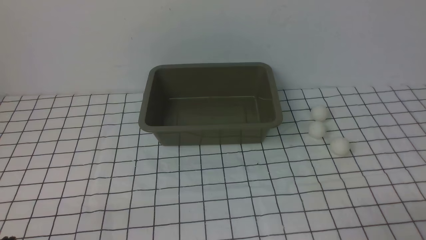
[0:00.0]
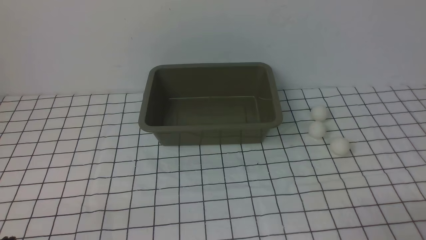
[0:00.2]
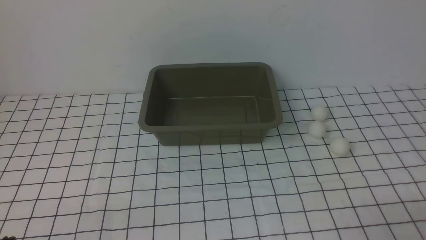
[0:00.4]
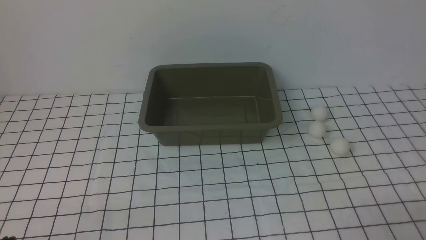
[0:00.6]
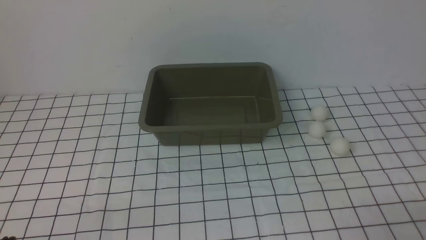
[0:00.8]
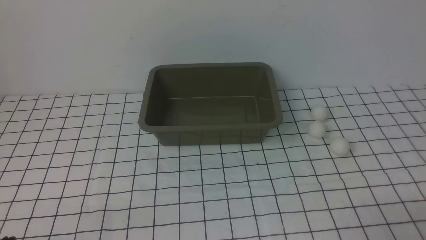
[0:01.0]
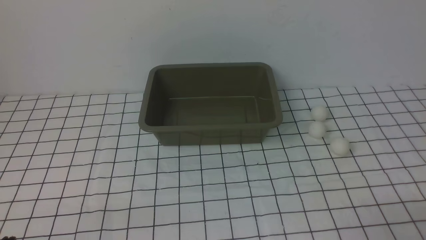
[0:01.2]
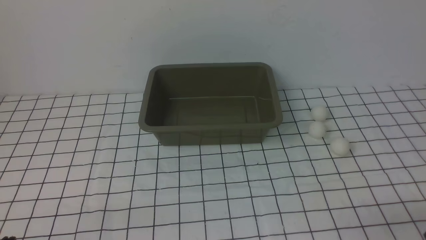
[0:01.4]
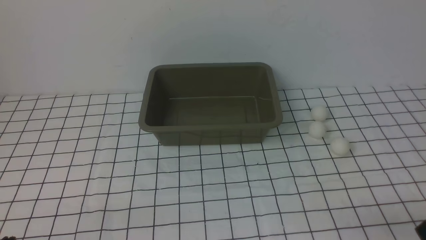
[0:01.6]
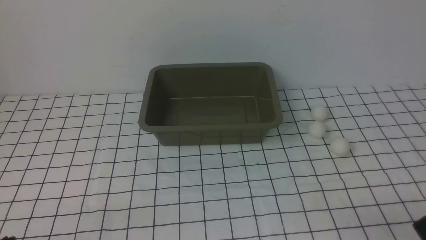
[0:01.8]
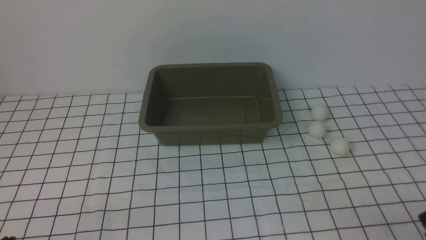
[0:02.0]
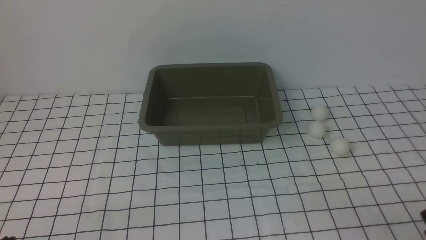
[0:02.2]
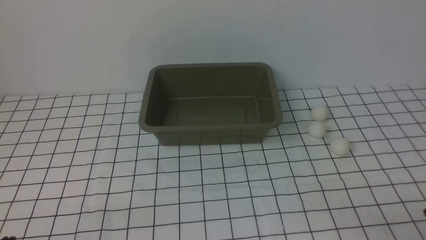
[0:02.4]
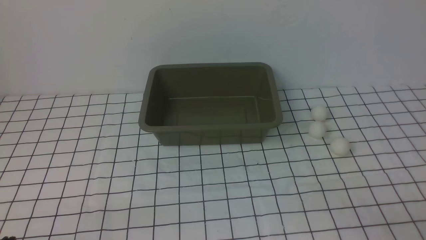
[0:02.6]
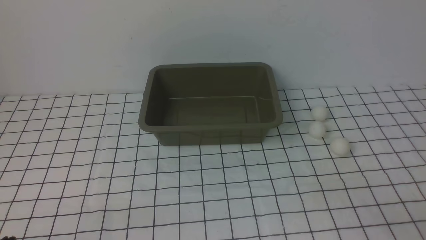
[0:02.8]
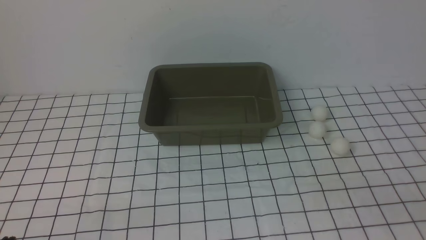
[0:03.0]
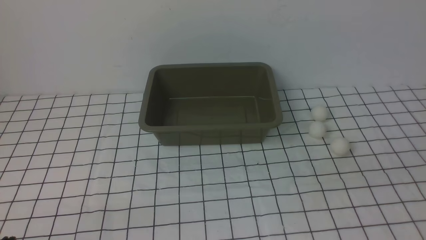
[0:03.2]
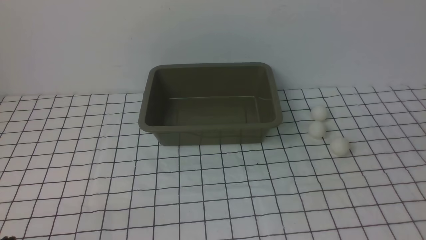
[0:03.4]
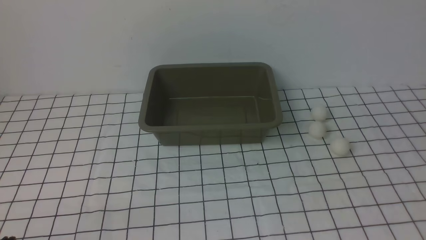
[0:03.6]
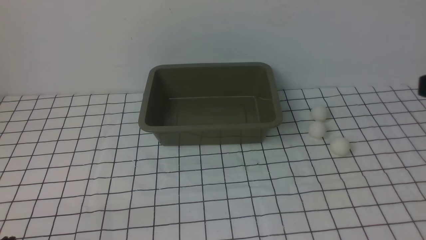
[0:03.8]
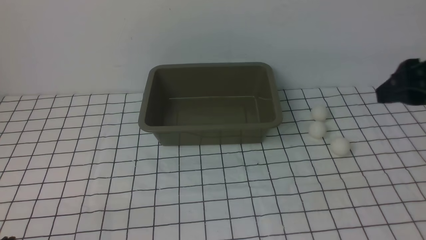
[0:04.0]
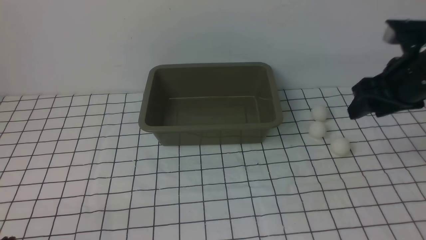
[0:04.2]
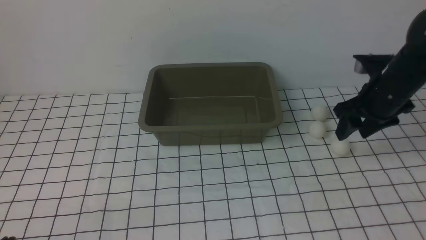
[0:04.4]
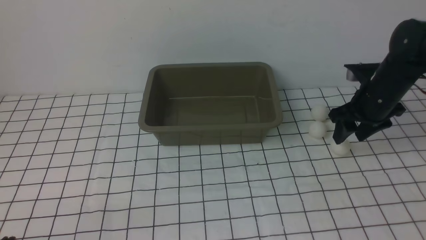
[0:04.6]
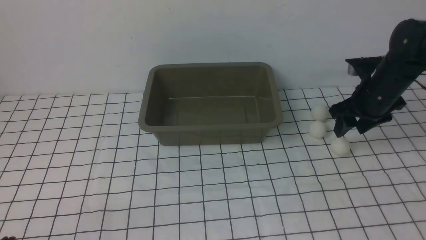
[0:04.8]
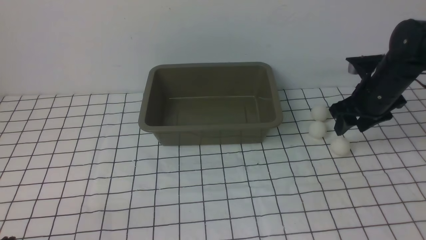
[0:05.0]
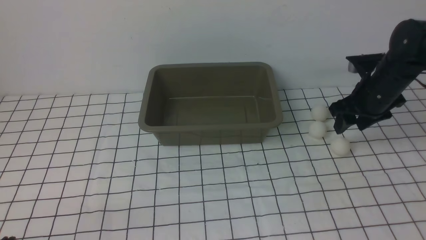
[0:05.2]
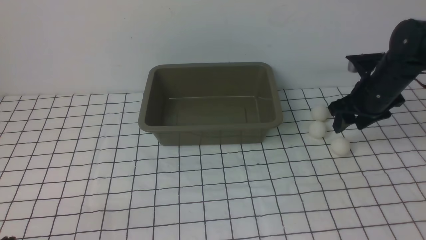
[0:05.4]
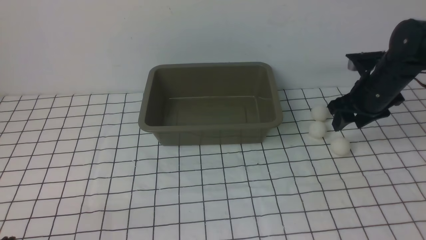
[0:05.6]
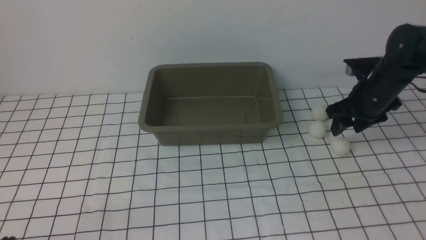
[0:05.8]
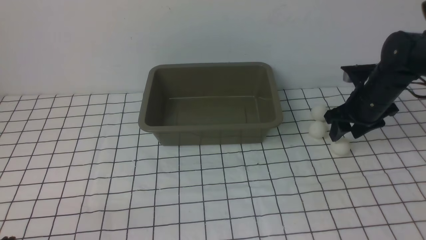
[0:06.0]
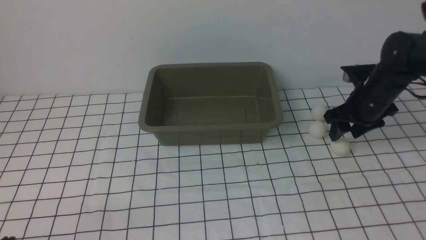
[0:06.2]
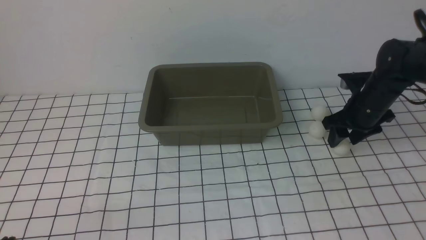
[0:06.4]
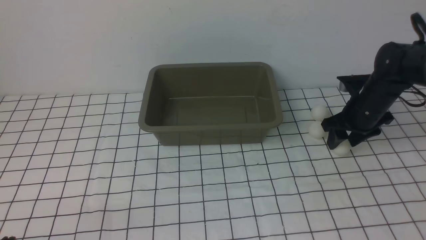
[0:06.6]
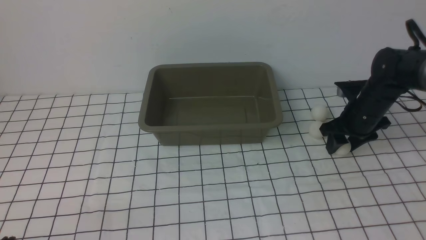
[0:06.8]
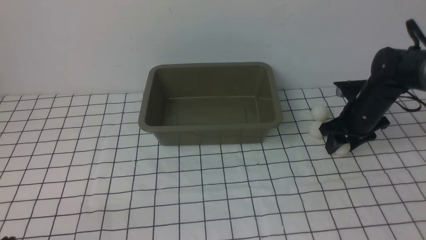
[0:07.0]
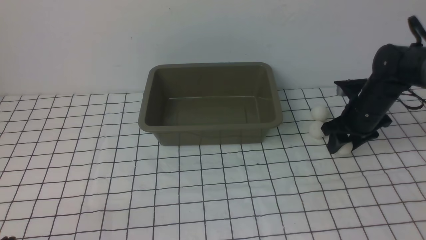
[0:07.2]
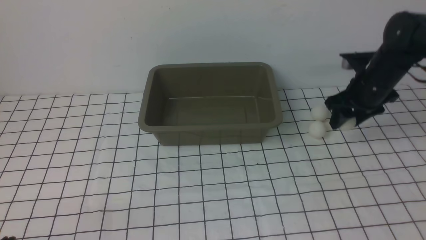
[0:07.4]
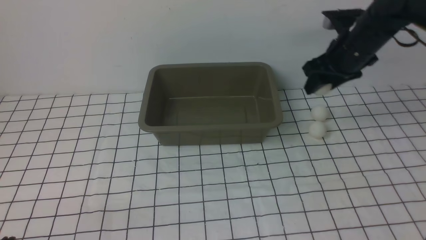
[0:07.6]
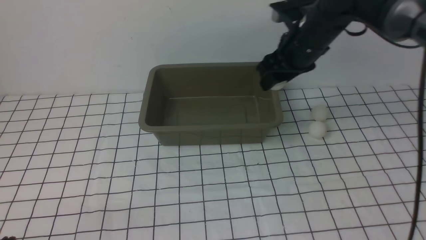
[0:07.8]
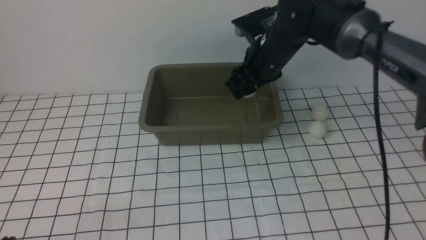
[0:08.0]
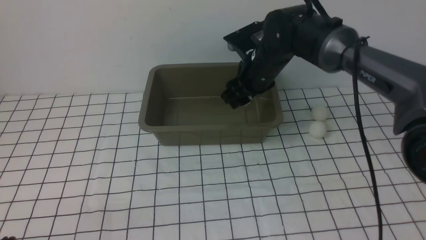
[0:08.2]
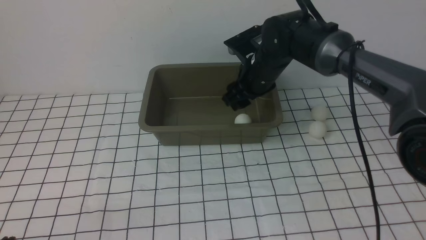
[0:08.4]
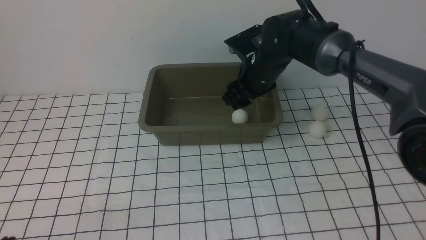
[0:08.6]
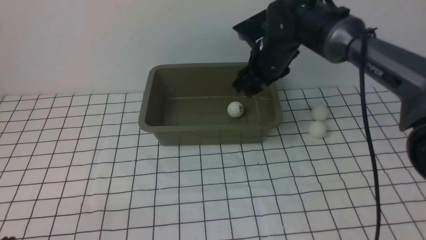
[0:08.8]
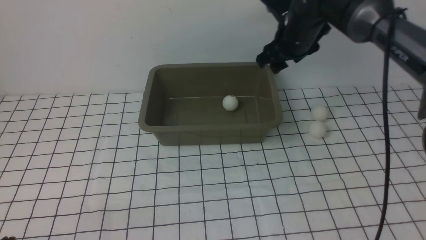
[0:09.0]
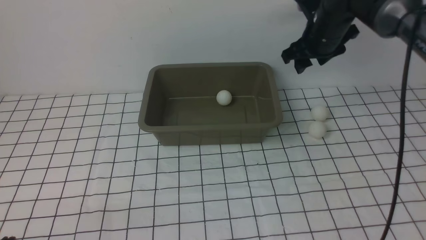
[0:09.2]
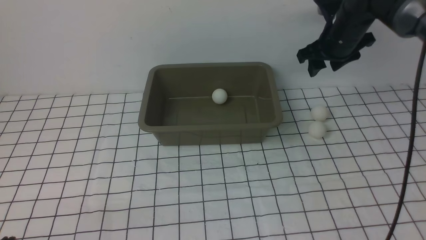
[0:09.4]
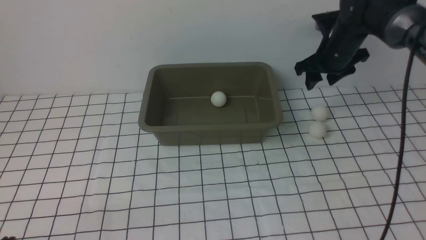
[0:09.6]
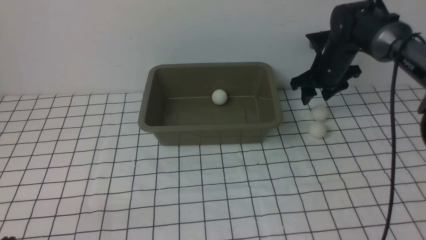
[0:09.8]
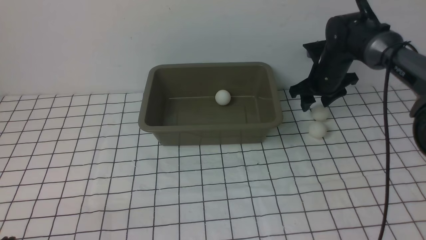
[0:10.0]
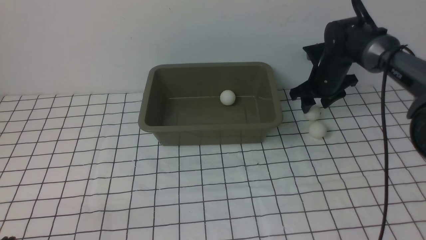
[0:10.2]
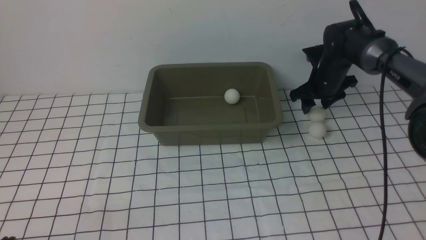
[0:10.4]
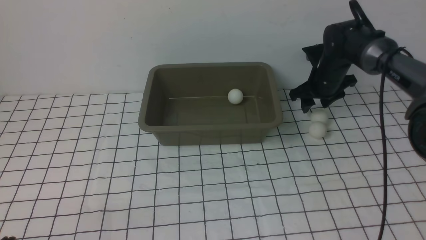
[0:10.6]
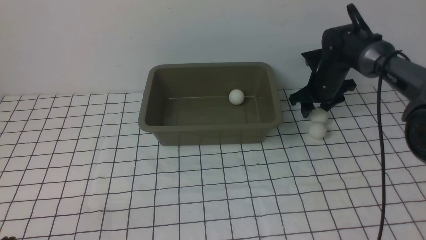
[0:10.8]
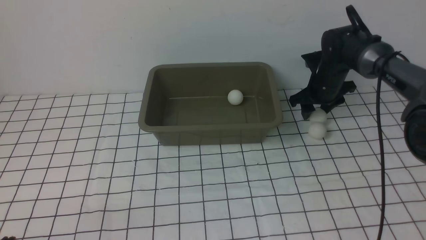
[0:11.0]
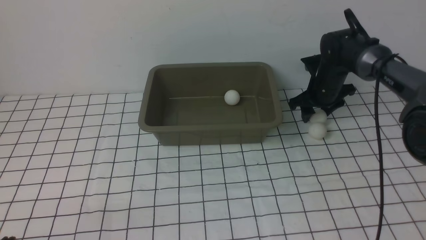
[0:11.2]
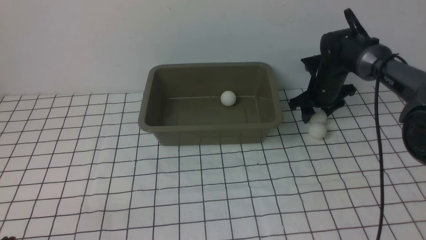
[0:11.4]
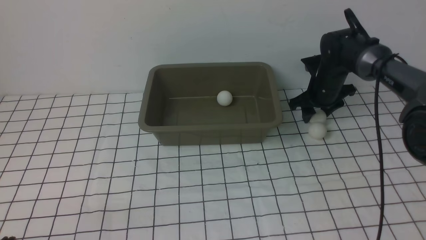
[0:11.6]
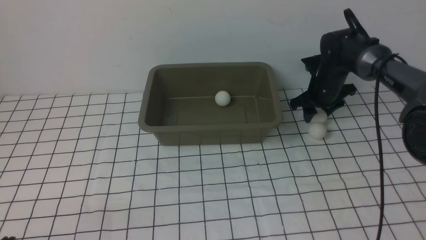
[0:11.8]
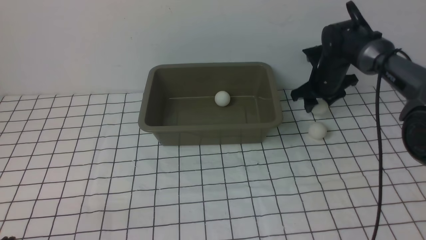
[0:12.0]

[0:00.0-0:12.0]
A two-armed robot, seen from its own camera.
Step, 0:00.0 to 0:07.4: use the right arm to clamp the table tennis ball closest to it.
Step, 0:07.6 to 0:08.6: use the right arm to put the table tennis ball into the box.
0:03.0 to 0:04.4: The right gripper goes roughly 35 cm forward.
0:04.4 to 0:06.0: The right gripper shifts by roughly 5 cm.
0:06.0 to 0:07.6: The right gripper heads upward, covering roughly 5 cm.
0:07.6 to 0:09.0: The right gripper goes some 10 cm to the left.
0:09.0 to 0:10.4: The right gripper heads to the right, downward and forward, covering some 15 cm.
0:10.4 to 0:12.0: There are only small adjustments of the grippers.

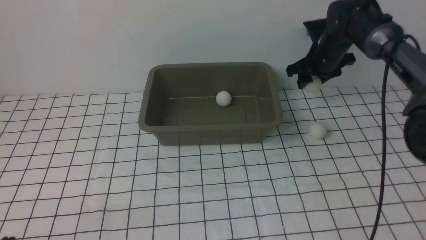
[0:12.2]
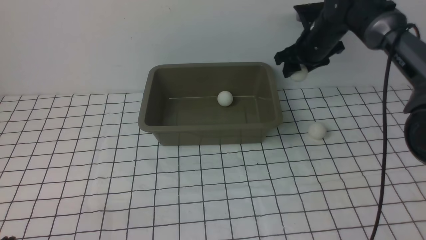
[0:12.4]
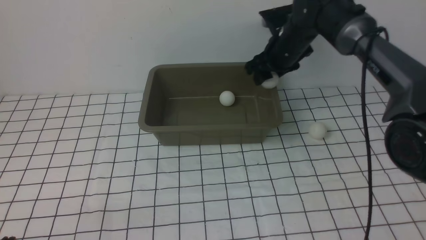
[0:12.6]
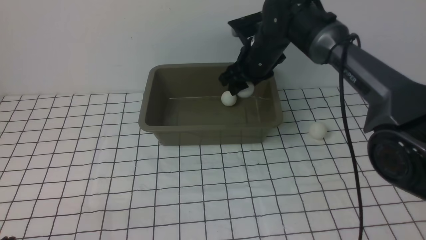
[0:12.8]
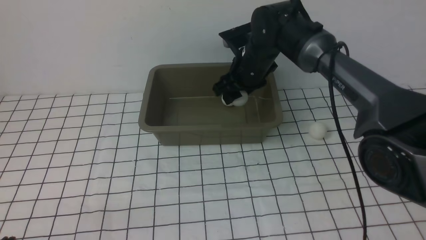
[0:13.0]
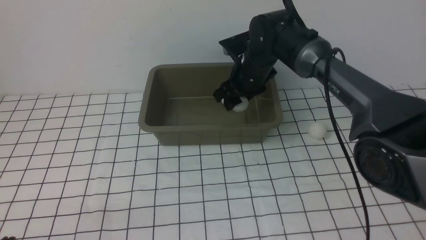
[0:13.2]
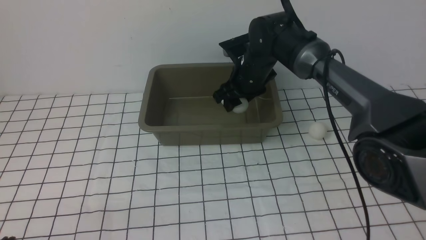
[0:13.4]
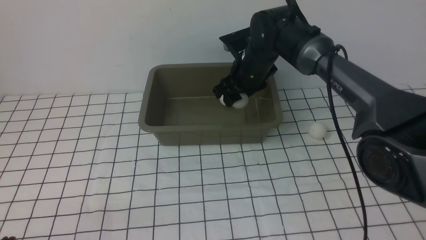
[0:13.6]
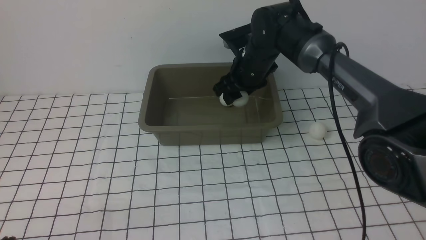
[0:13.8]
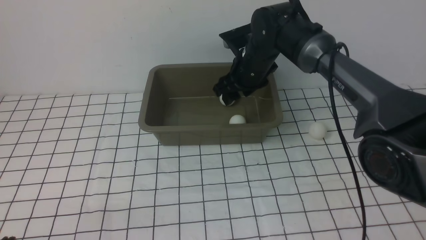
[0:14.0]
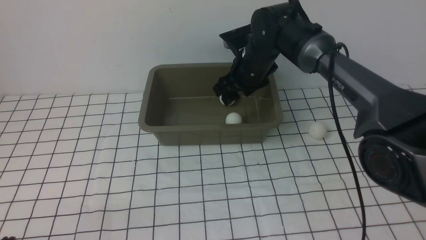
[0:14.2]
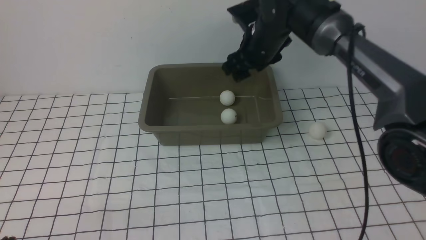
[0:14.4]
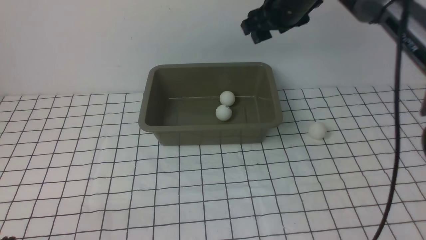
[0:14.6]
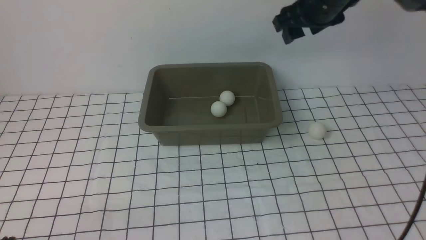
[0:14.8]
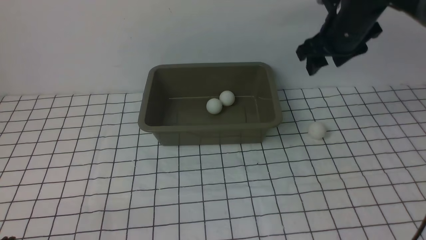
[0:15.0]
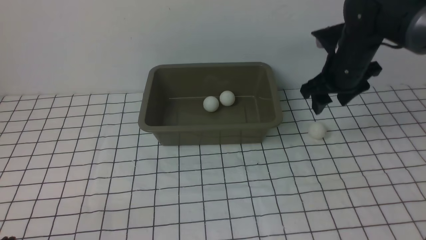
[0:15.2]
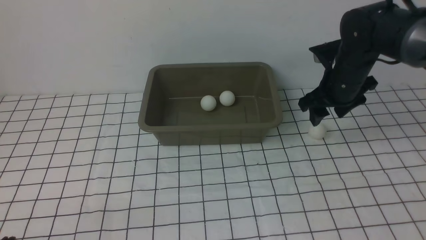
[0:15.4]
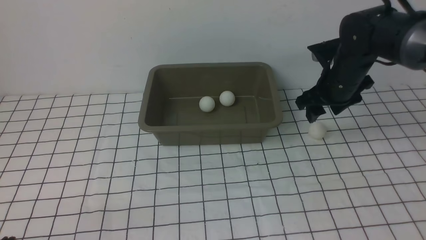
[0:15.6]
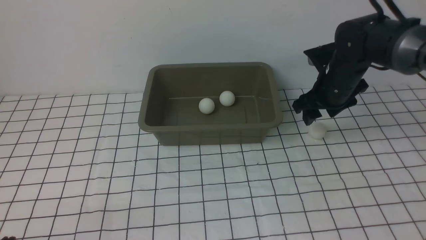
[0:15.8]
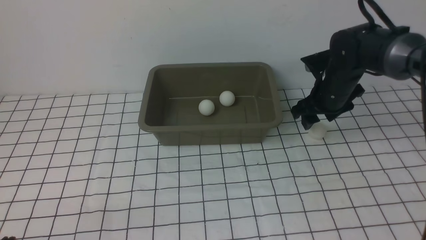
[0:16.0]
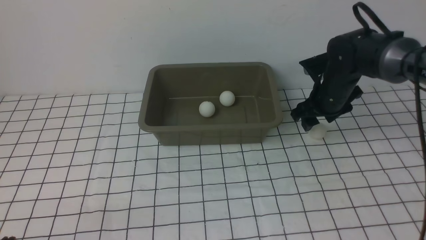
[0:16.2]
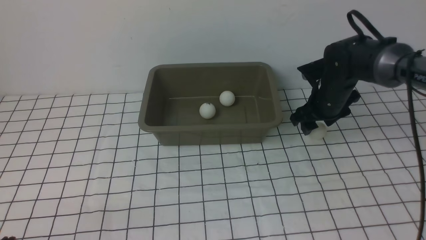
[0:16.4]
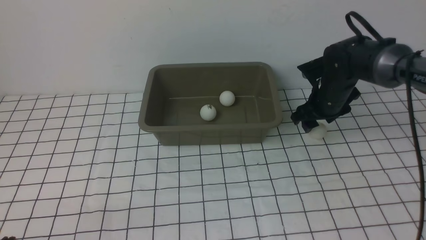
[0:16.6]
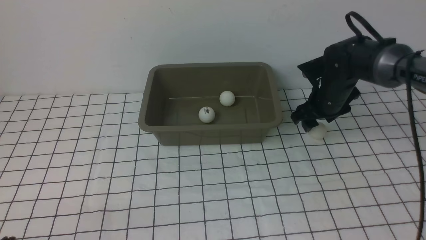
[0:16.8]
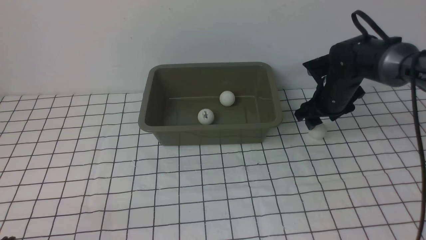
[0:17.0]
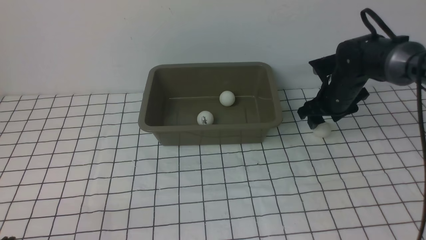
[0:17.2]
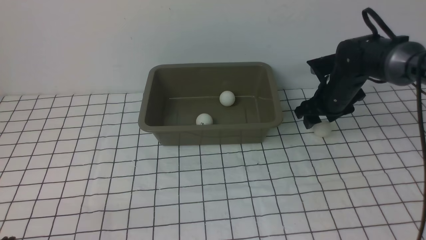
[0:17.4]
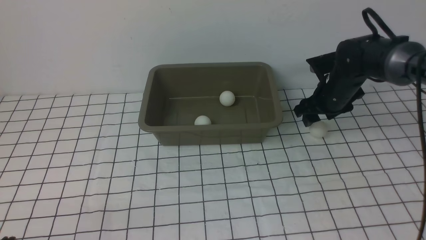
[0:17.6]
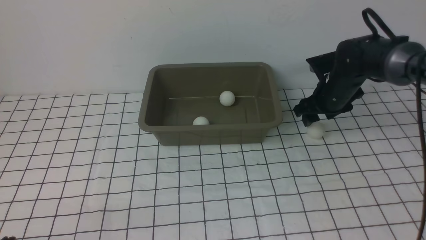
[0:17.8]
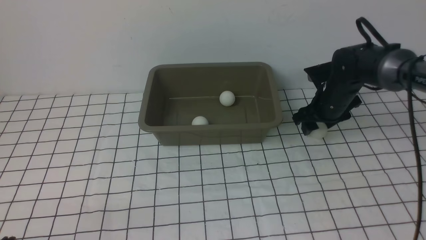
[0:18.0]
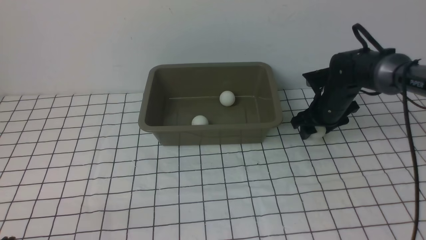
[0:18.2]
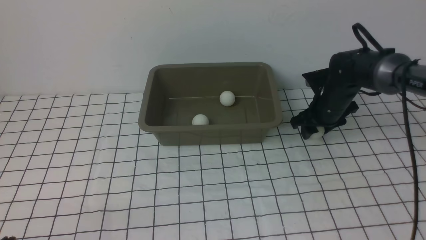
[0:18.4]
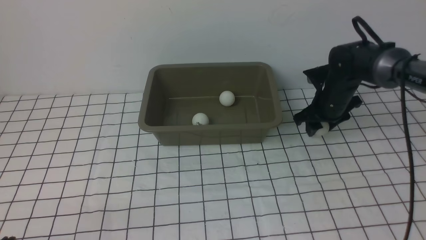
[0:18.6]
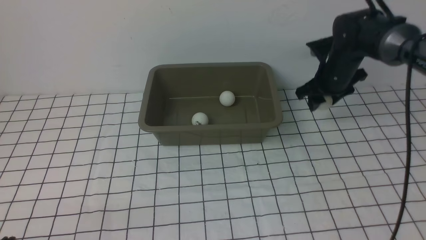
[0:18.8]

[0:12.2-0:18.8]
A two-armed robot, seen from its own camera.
Step, 0:12.4 to 0:14.0: use the right arm to put the table tennis ball into the box.
Step, 0:14.2 to 0:18.8: use the right arm to clamp the table tennis ball closest to it.
0:12.2 to 0:13.8: The right gripper goes about 15 cm to the left.
0:13.8 to 0:15.4: The right gripper moves to the right, about 15 cm.
0:15.4 to 0:17.2: The right gripper is displaced downward by roughly 5 cm.
0:17.2 to 0:18.8: The grippers move only a little.
